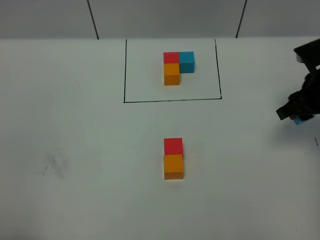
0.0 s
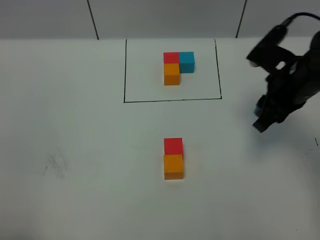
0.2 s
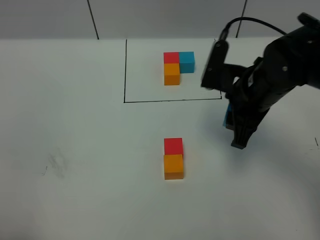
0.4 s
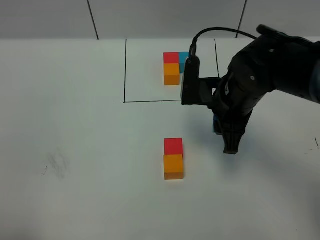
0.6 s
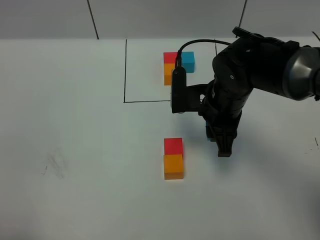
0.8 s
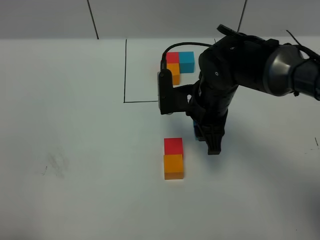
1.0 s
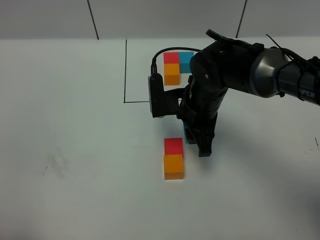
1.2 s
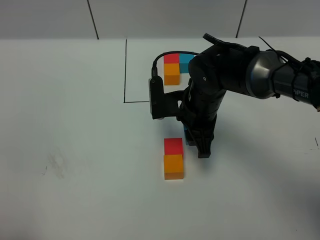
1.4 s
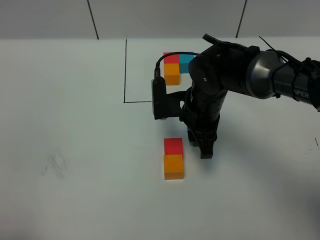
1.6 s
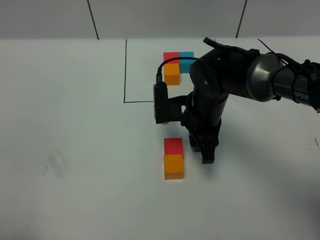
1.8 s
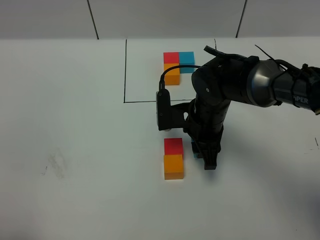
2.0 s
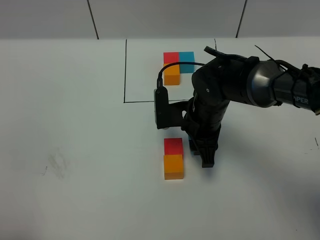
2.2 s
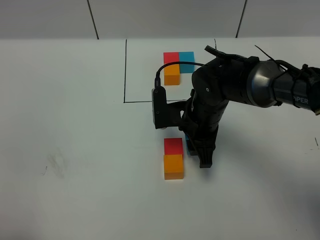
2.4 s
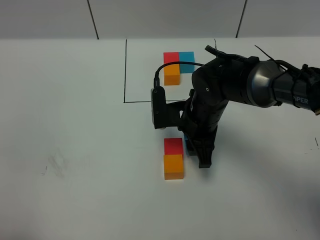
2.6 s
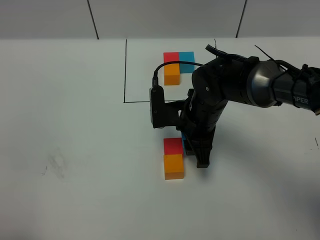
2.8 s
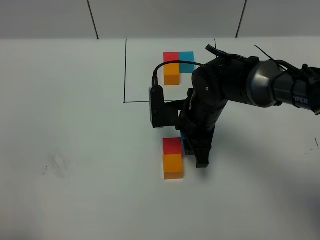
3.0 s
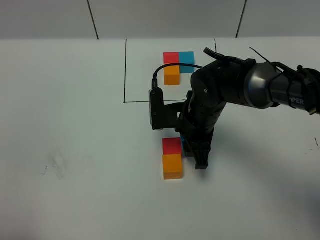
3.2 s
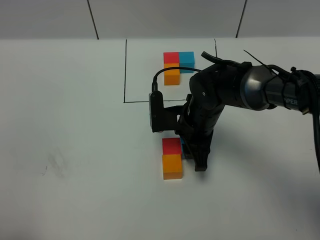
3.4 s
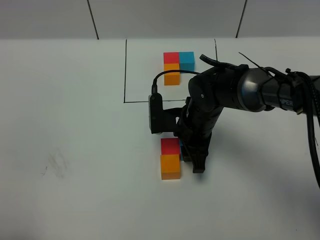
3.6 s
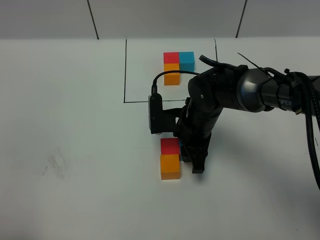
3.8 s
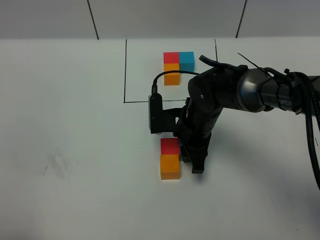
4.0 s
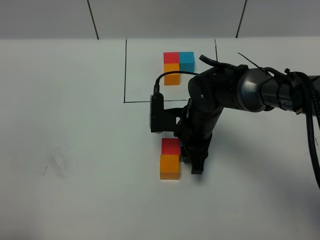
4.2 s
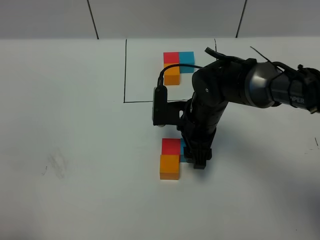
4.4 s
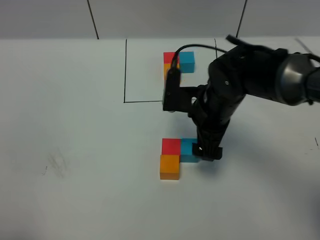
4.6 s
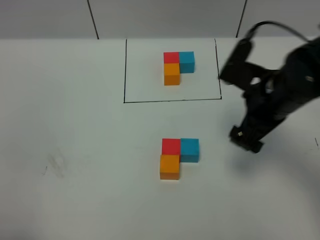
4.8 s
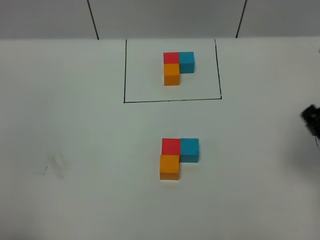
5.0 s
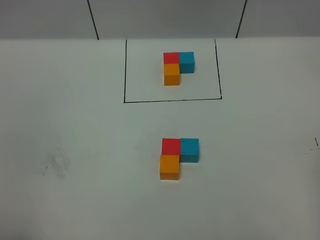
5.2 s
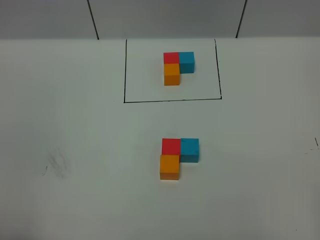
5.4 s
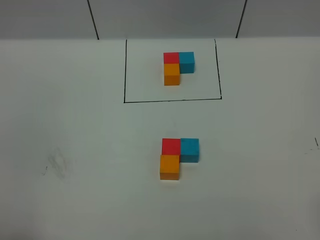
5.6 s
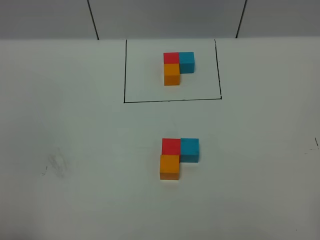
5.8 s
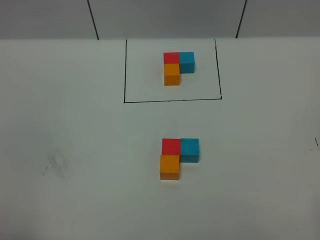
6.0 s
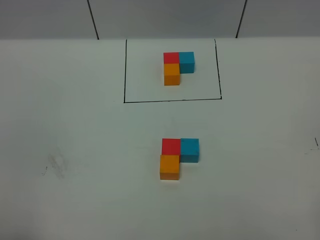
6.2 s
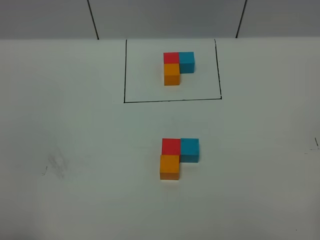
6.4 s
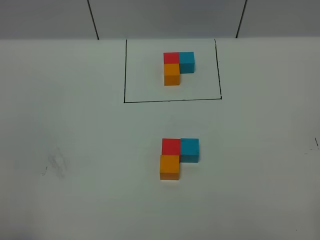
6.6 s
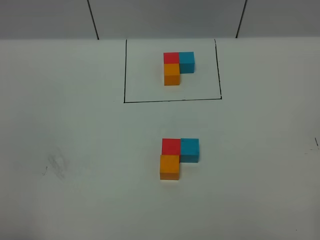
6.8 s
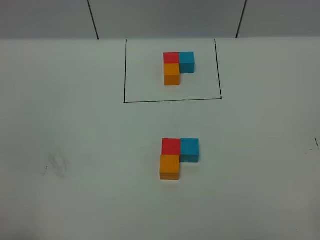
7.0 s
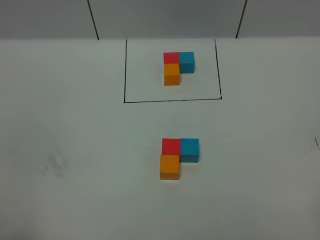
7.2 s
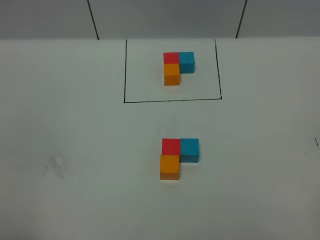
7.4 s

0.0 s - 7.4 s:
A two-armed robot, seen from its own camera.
Task of the whole recording: According to the building block template in front, assemble the scattered blocks together.
Step, 0.0 s - 4.4 s: Put the blue cube on the right of the red cube.
0.0 s - 1.4 s: The right gripper shifts roughly 20 cm to the left.
1.4 s - 3.0 s: The grippers make only small movements.
3.0 s - 4.4 s: The right gripper opens its fingers.
4.4 s - 6.0 s: The right gripper moves backward, to the right and upward, about 40 cm, and opens.

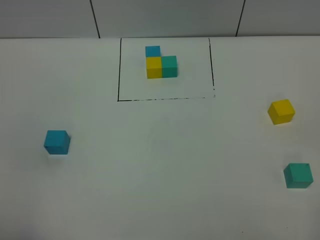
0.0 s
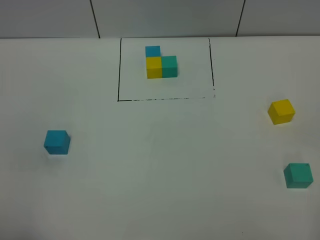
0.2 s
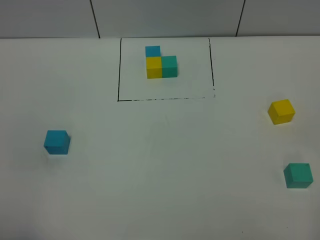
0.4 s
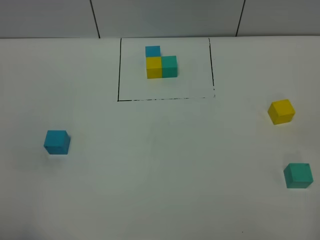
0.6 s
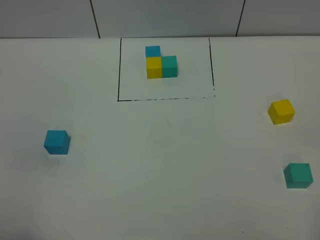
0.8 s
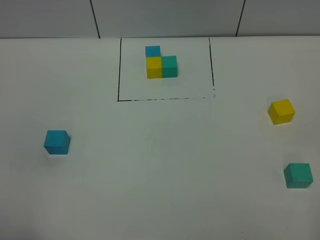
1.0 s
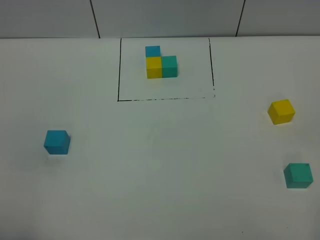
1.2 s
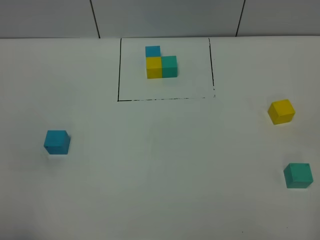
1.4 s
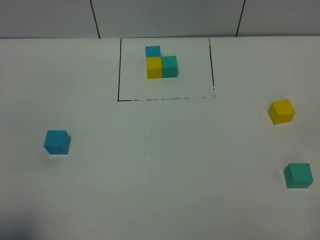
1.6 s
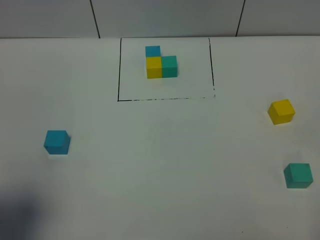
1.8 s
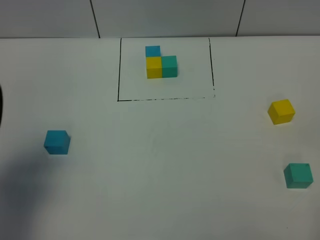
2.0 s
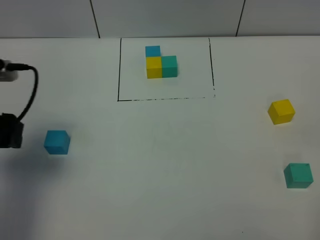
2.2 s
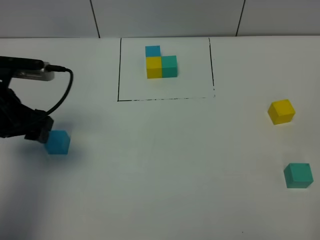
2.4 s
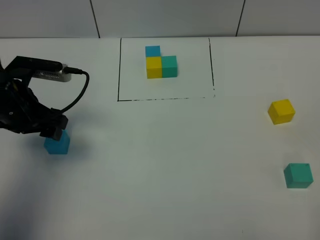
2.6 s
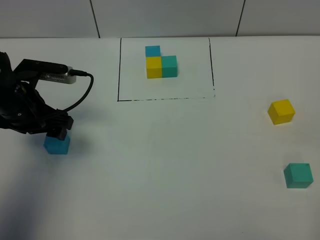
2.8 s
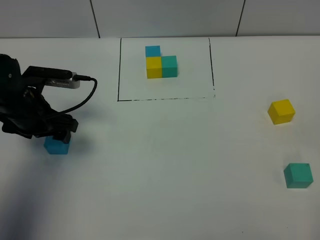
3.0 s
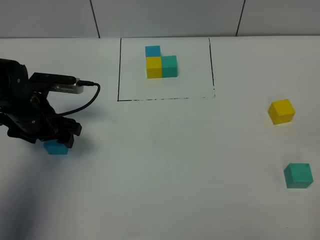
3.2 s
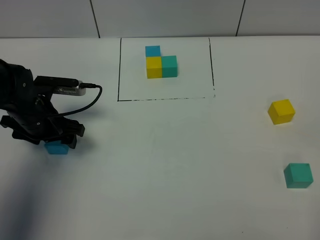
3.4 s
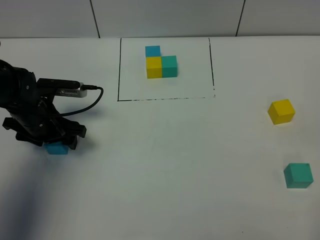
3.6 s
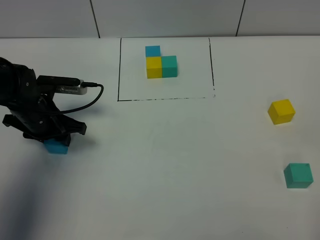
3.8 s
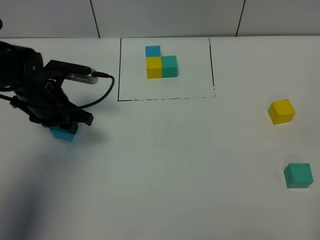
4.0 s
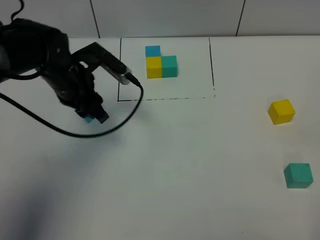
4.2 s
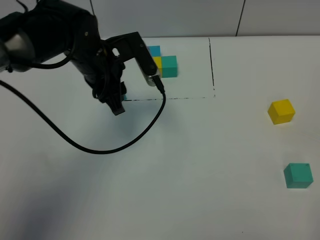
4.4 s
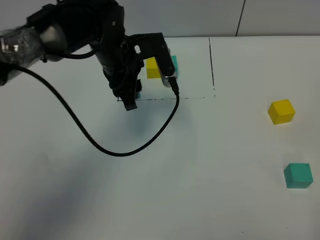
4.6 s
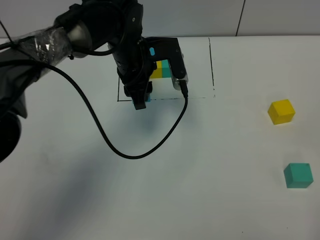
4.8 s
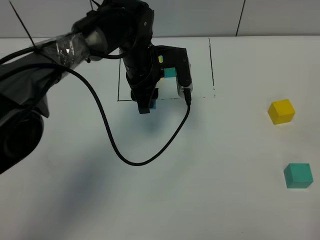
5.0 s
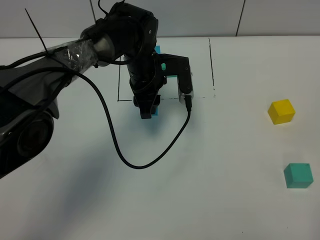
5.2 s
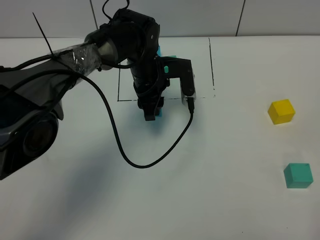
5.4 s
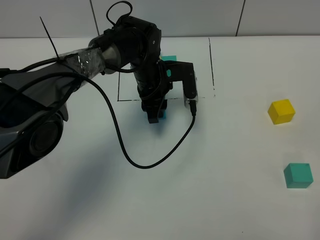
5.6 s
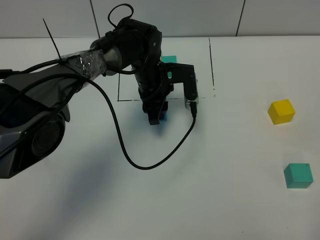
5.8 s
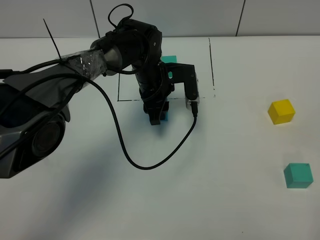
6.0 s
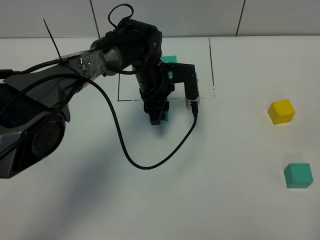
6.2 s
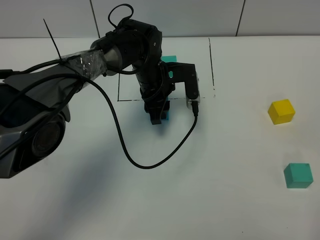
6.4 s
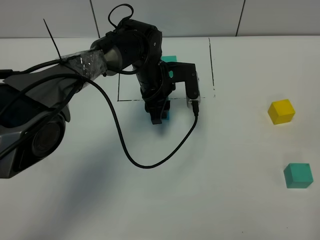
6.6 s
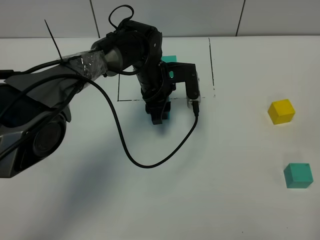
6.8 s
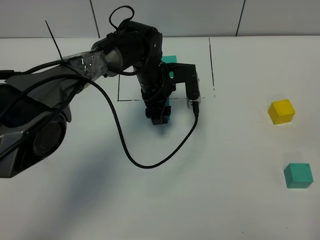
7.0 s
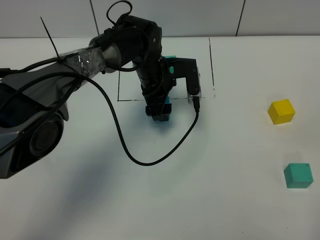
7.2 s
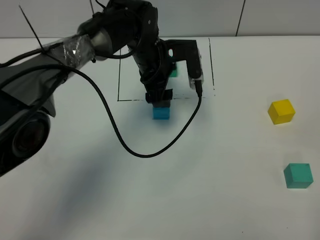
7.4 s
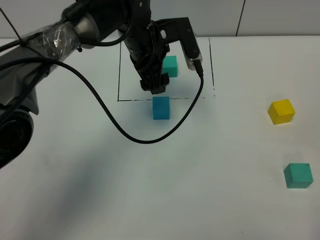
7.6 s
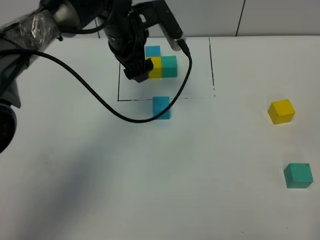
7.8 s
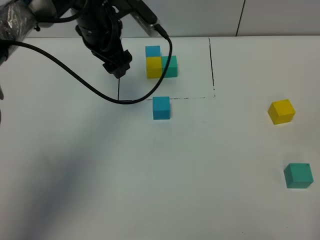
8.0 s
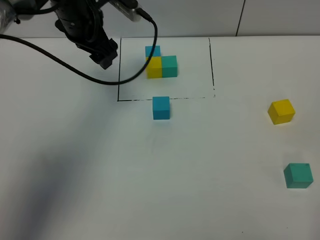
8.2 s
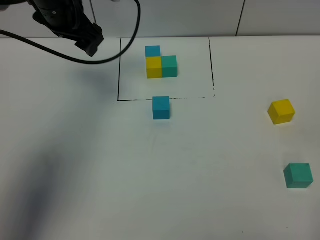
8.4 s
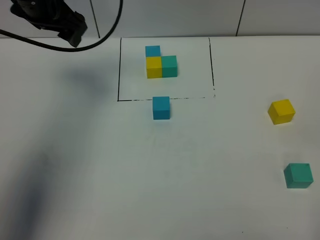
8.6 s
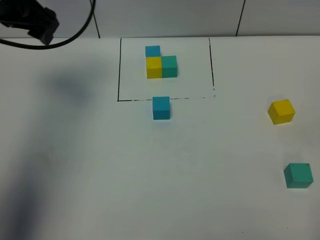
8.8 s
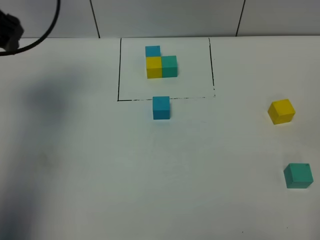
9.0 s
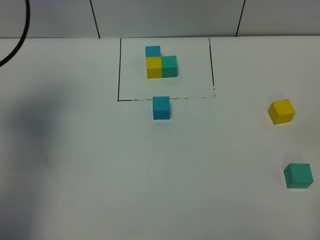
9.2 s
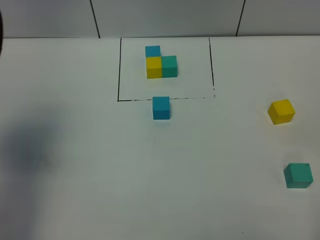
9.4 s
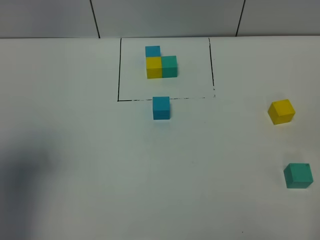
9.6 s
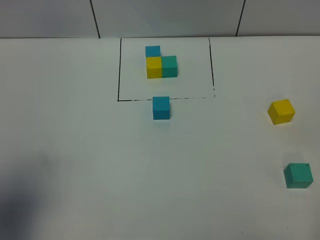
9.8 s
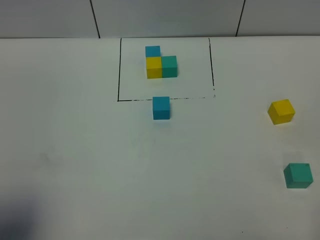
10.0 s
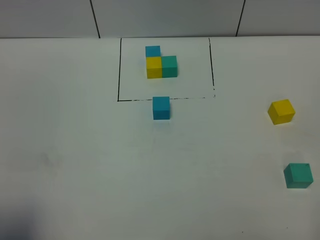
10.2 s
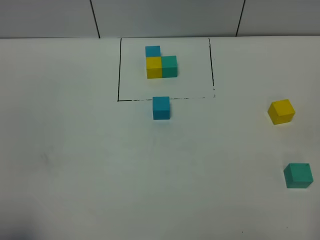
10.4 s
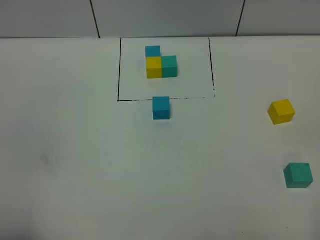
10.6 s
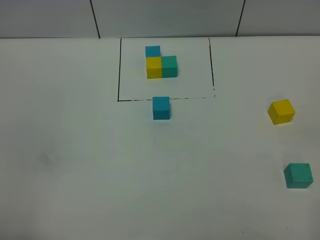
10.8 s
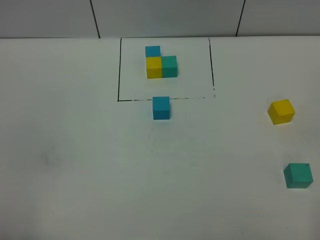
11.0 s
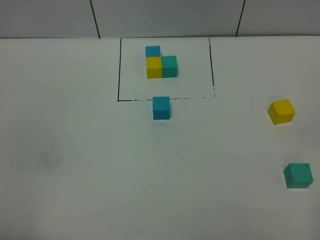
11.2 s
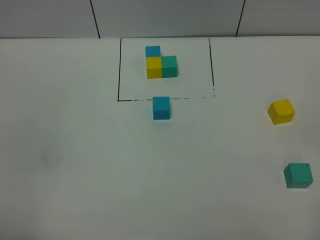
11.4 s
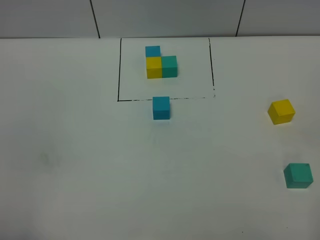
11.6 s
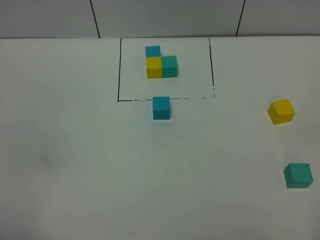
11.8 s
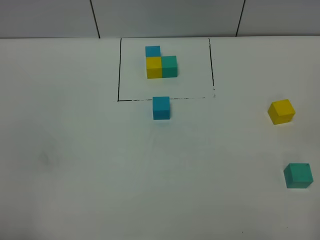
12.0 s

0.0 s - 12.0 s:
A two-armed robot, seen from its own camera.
Task of the whole recording: According to the building block template in front, assemble the scattered blocks together.
Step, 0.0 s - 7.0 s: Put the blue build block in the center of the table.
1.6 s - 3.0 s: The left gripper moves forward and downward, about 30 cm.
3.0 s - 4.4 s: The left gripper goes some 15 cm to the right and upward, and closes its fingers.
4.4 s - 6.0 s: The left gripper heads downward, to the right and forward, covering about 15 cm.
6.0 s - 7.6 s: The left gripper goes roughly 10 cm upward, and opens its fingers.
7.6 s - 9.0 s: The left gripper goes about 30 cm to the left and upward.
9.0 s - 10.4 s: The left gripper moves backward, some 35 cm.

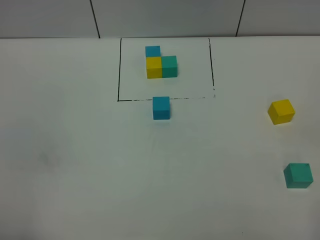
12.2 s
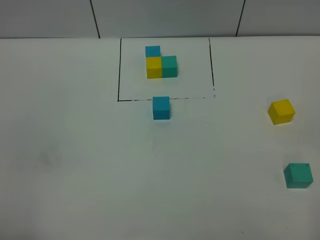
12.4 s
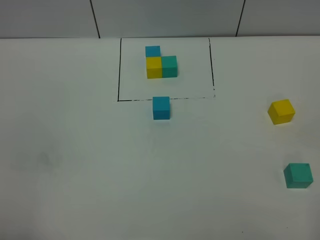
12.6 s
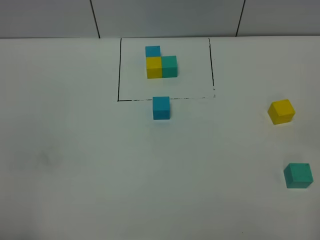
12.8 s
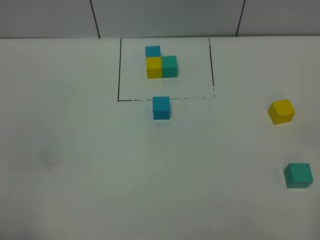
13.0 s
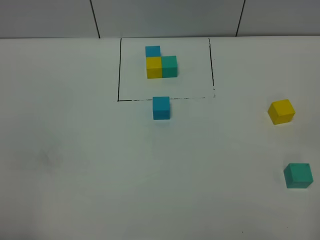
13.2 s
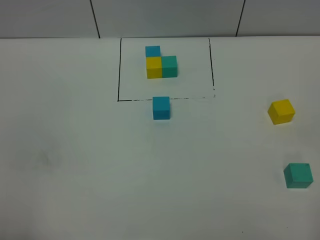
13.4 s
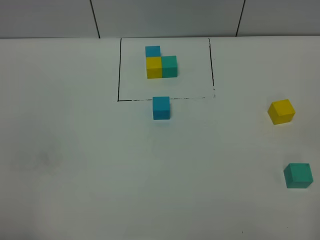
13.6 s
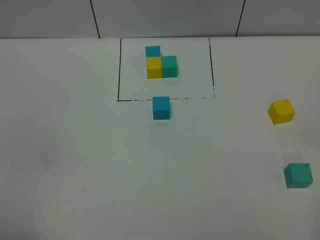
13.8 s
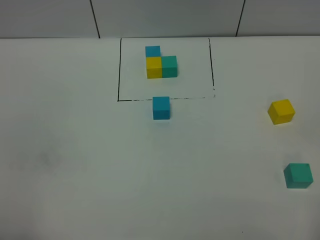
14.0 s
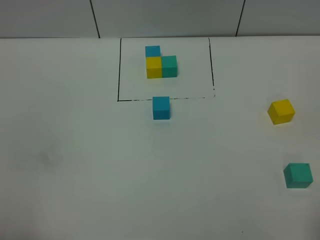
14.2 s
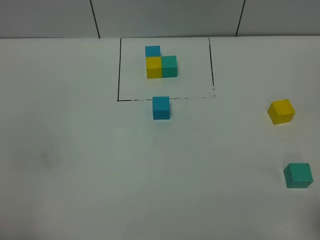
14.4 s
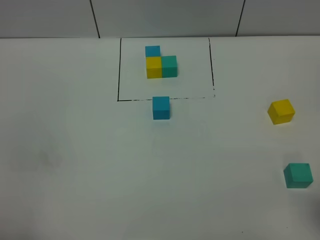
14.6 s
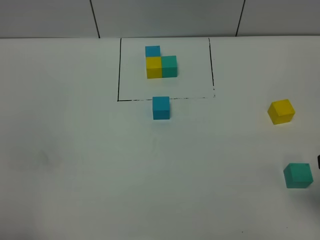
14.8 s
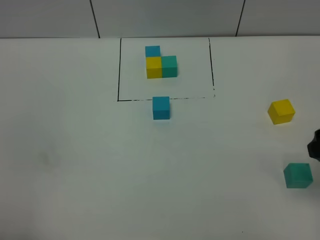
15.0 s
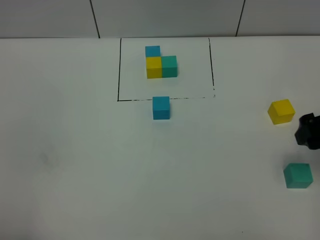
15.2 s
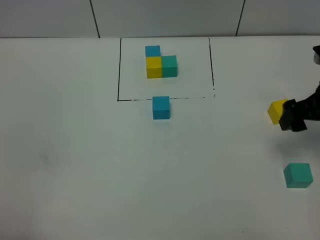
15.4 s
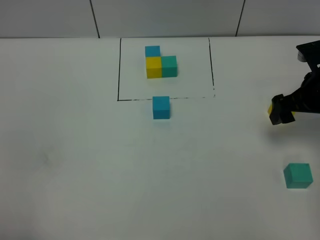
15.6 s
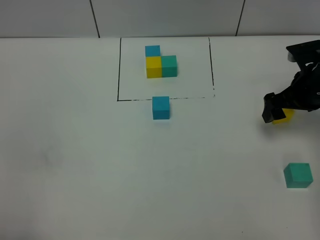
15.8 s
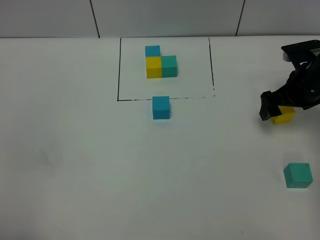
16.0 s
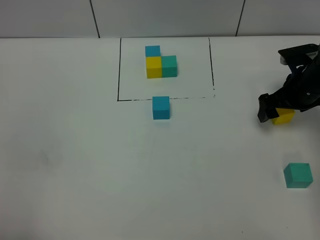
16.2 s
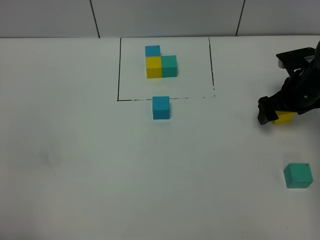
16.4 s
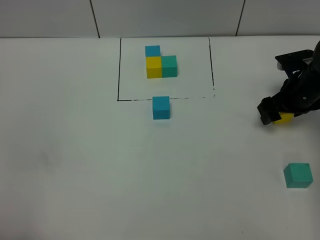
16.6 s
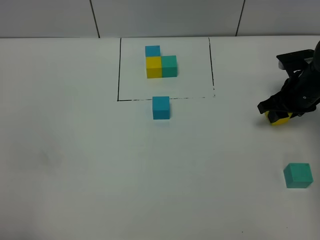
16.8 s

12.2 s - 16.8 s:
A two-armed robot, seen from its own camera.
Task of the whole recording: According to the building block template in front, assemble the scattered blocks together.
12.2 s - 13.8 s: Both grippers stay put.
13.8 s - 15.2 s: The right gripper goes approximately 25 cm forward.
15.2 s - 16.8 s: The right gripper shifts about 20 cm forward and downward, and closes up.
